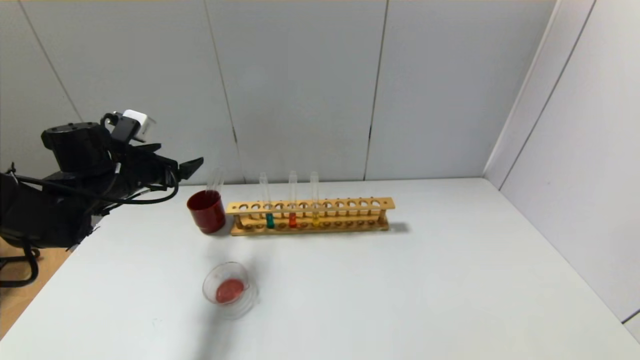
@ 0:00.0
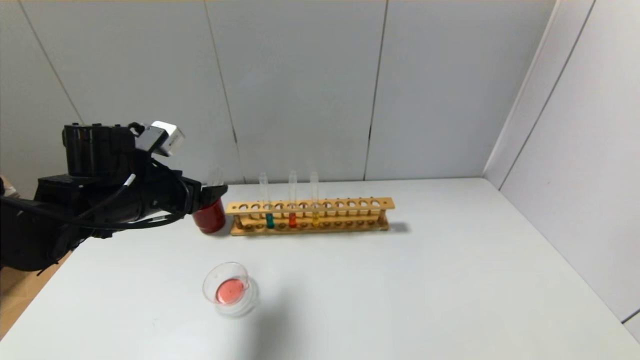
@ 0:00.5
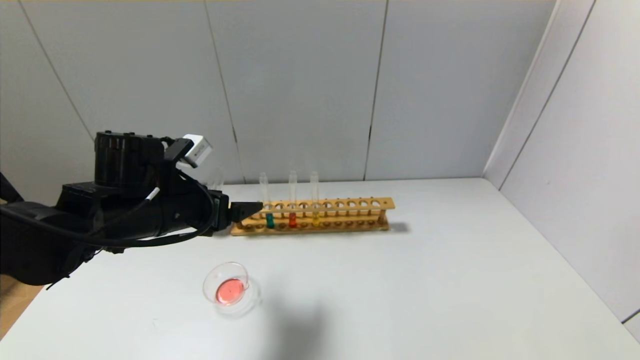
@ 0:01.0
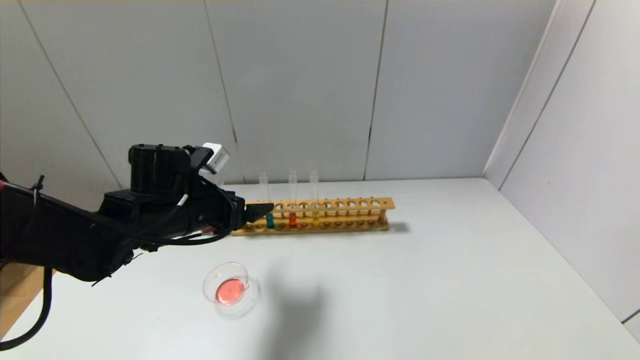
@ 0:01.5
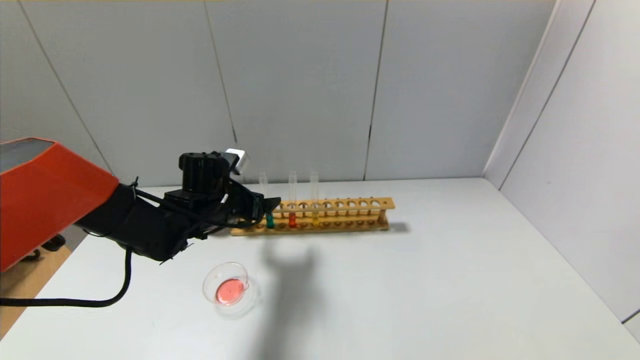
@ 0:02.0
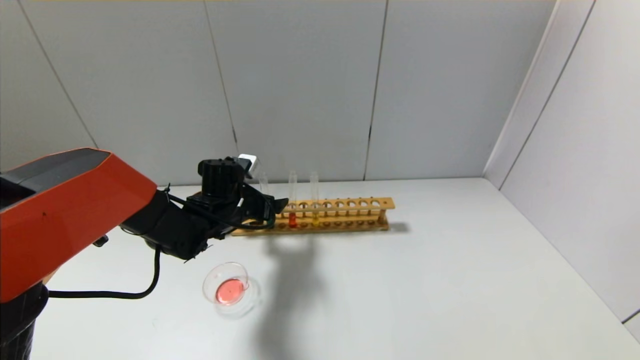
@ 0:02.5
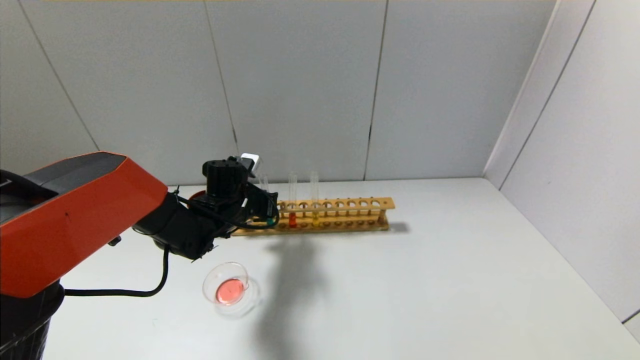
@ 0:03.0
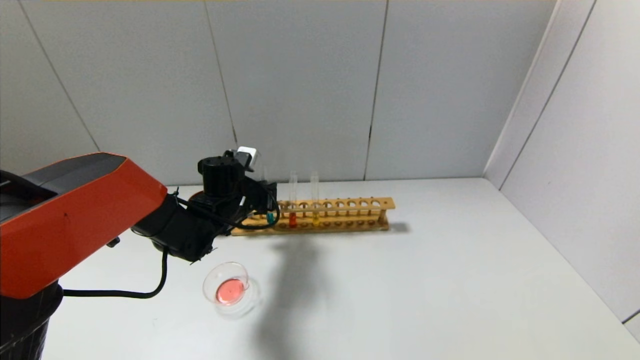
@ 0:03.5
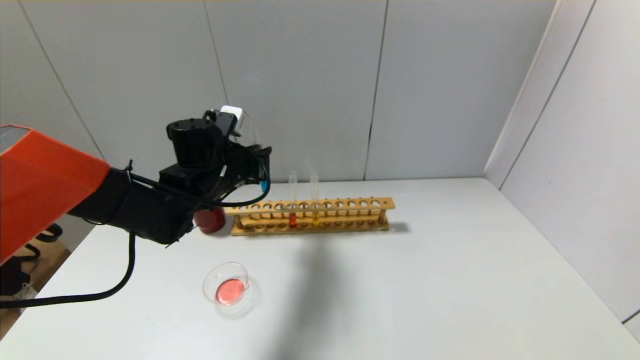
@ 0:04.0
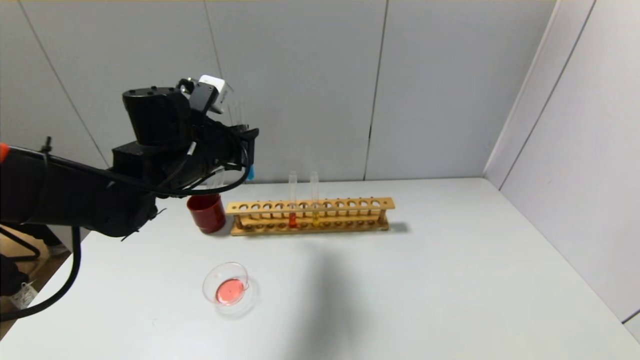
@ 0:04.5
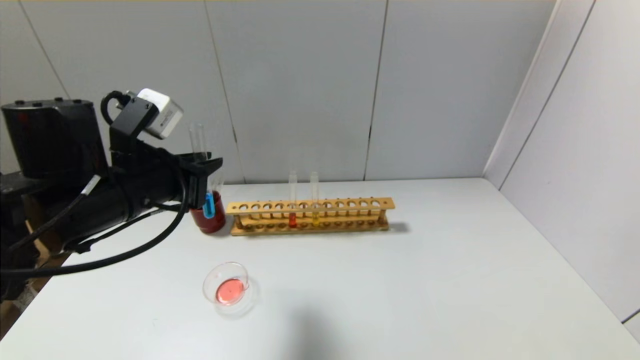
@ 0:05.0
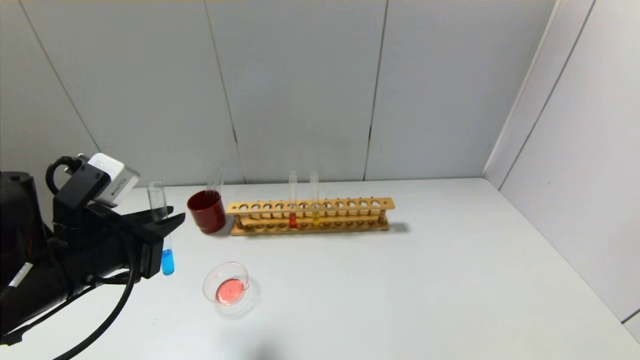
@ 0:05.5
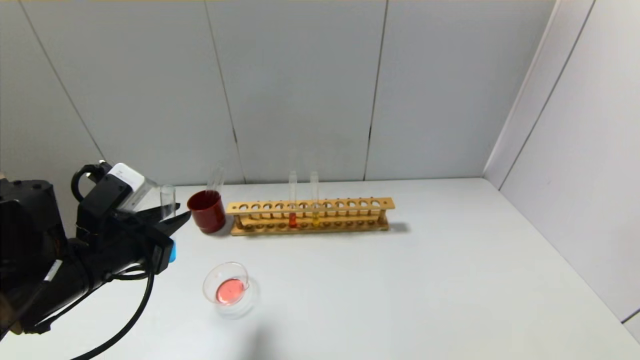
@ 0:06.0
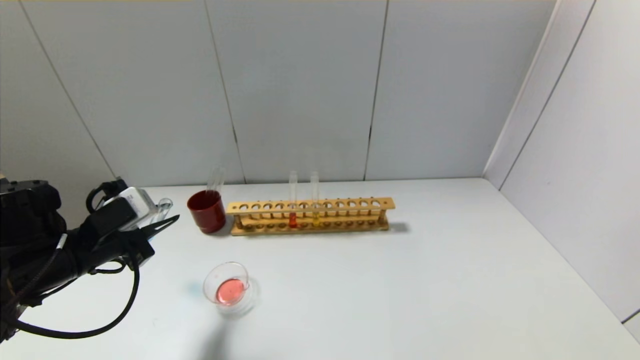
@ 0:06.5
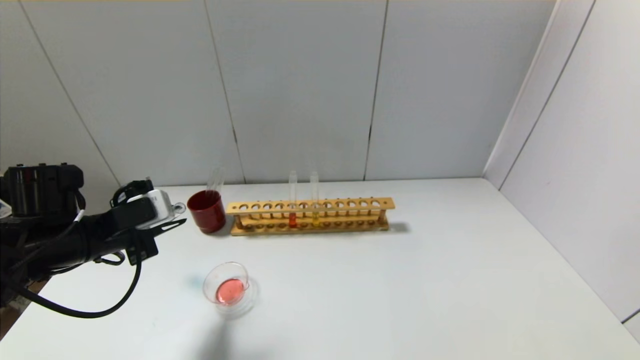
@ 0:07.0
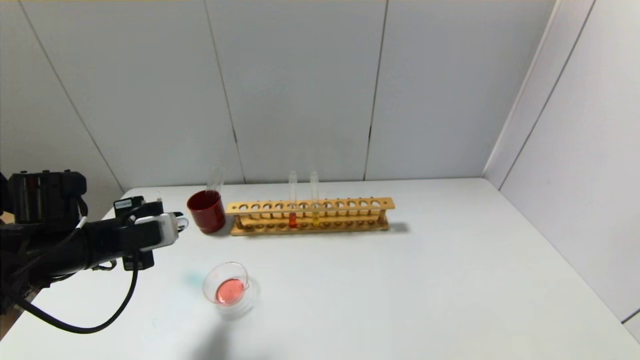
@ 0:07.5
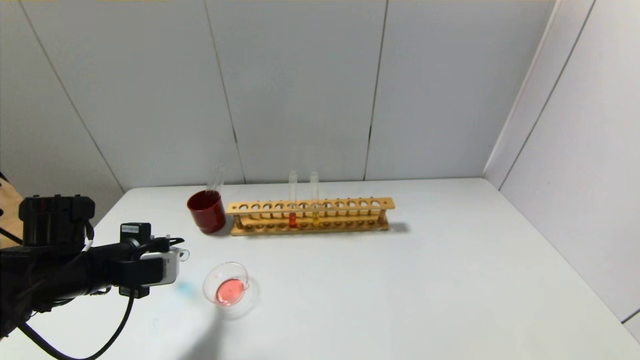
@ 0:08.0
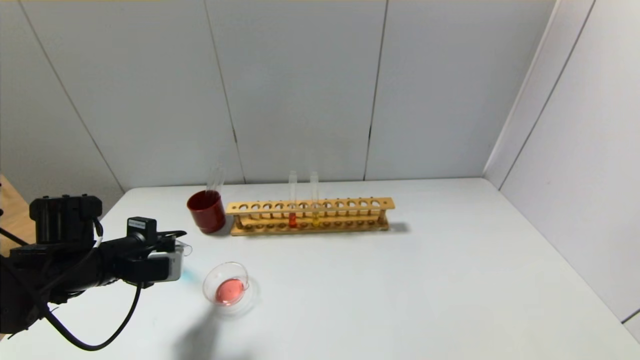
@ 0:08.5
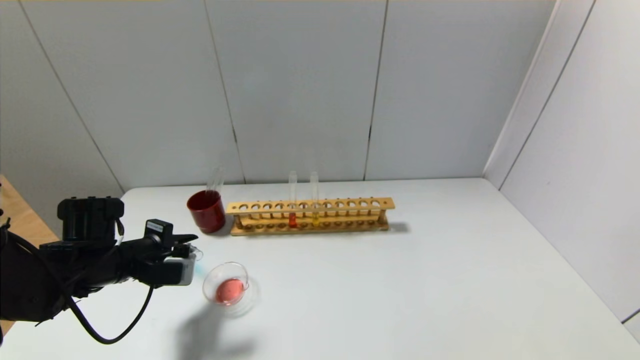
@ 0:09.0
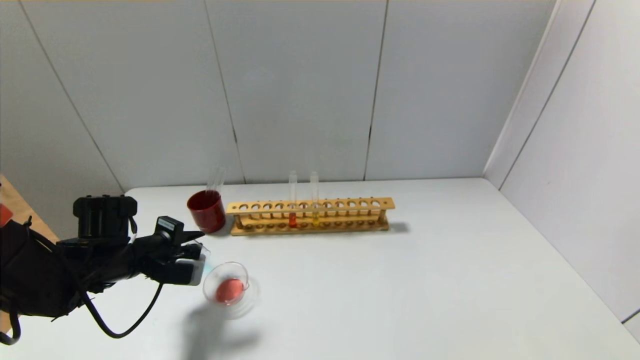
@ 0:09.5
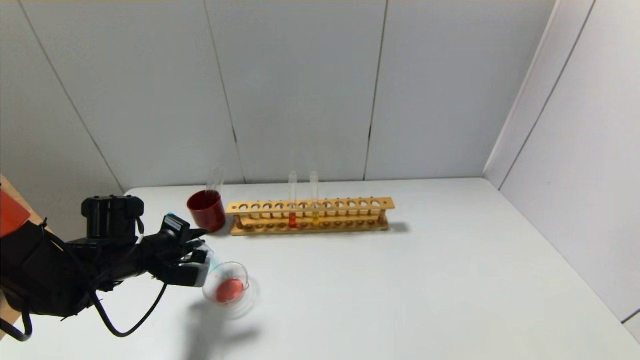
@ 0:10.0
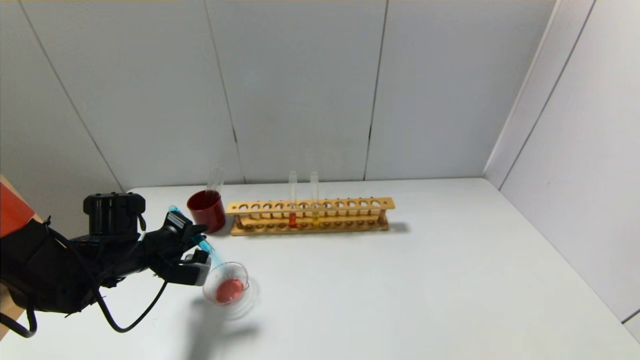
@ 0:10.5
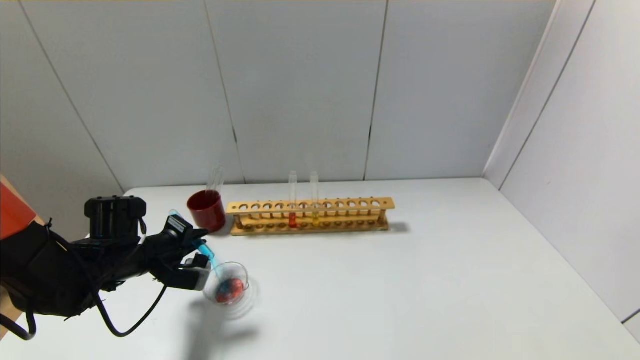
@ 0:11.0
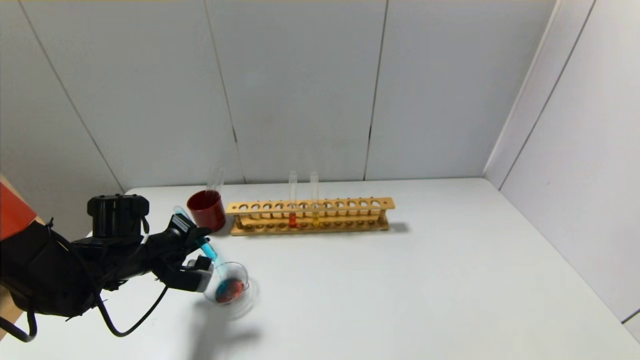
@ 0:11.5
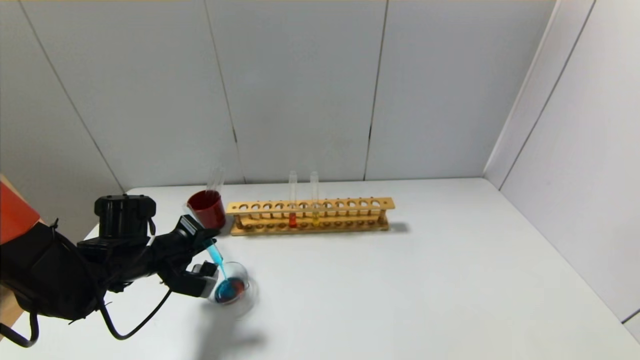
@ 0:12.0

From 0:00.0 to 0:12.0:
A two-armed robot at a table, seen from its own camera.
Step, from 0:00.0 to 0:03.5: Grasp the blue reagent with the left gripper.
From 0:00.0 to 0:02.0: The left gripper moves to the right, approximately 15 cm.
From 0:02.0 to 0:04.0: The left gripper shifts roughly 5 cm upward, and closes.
From 0:04.0 to 0:06.0: The left gripper goes some 20 cm backward and to the left.
From 0:06.0 to 0:08.0: The left gripper goes about 5 cm downward.
From 0:08.0 to 0:10.0: The left gripper goes roughly 5 cm forward.
From 0:10.0 to 0:12.0: There are only small adjustments of the grippers.

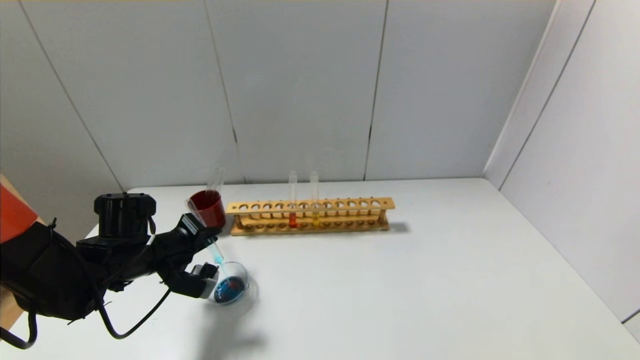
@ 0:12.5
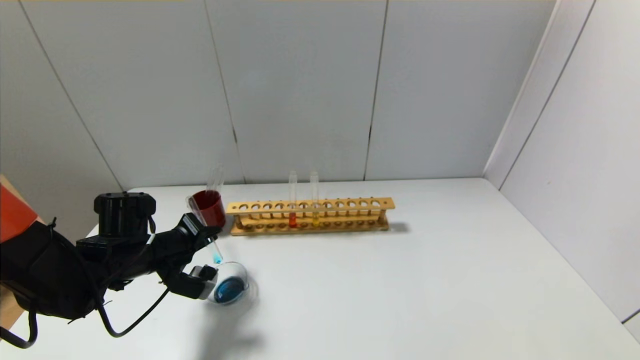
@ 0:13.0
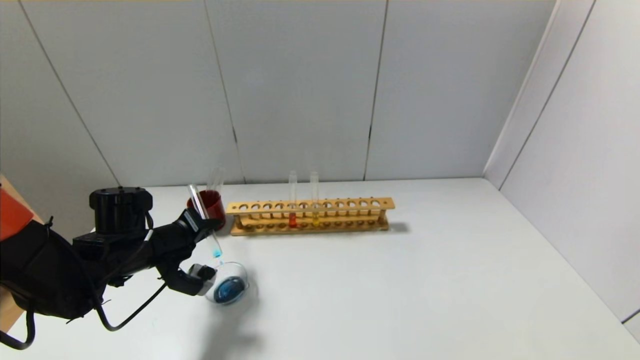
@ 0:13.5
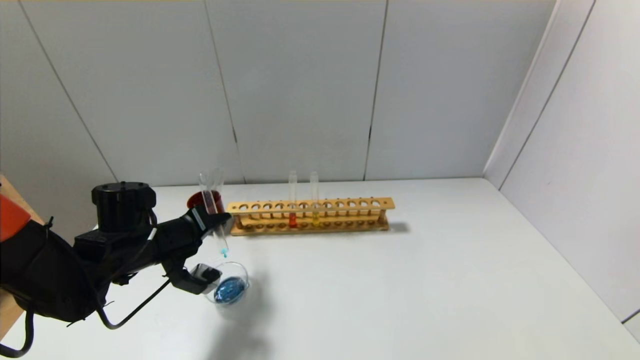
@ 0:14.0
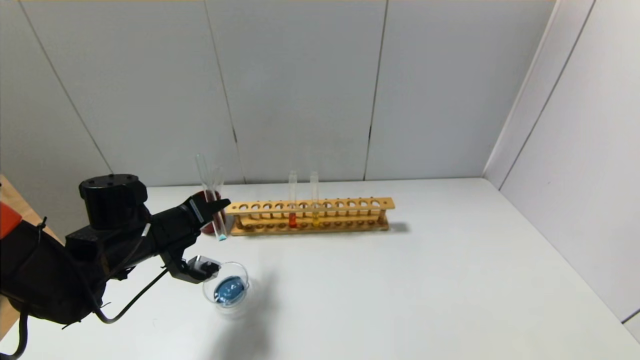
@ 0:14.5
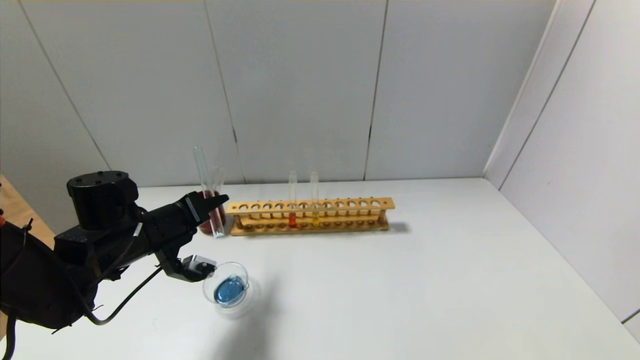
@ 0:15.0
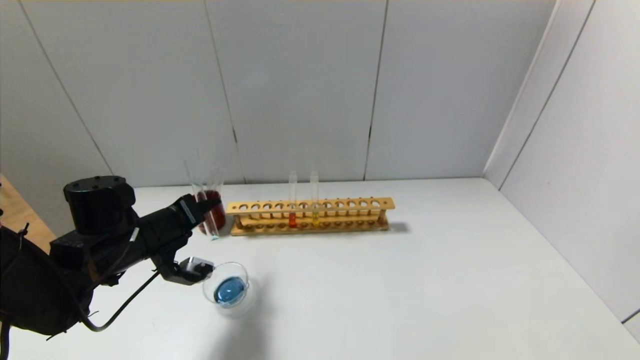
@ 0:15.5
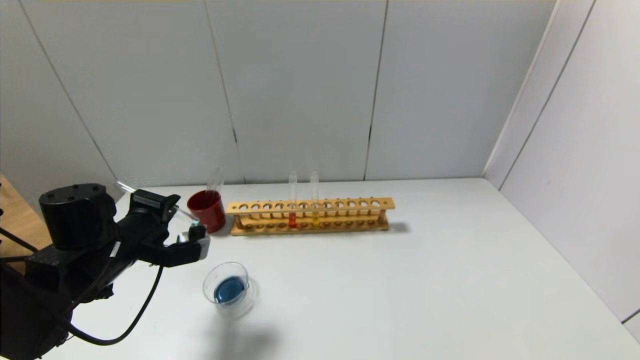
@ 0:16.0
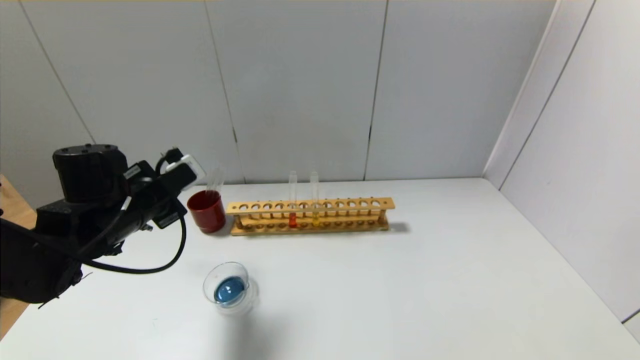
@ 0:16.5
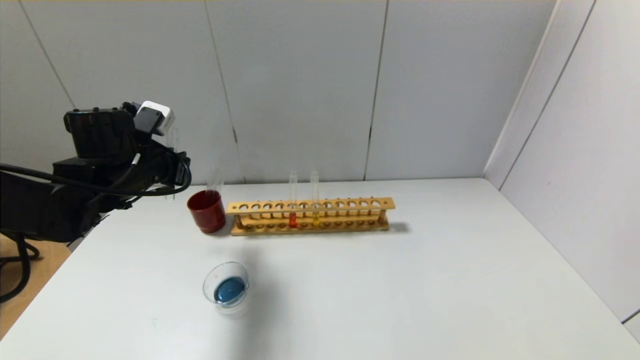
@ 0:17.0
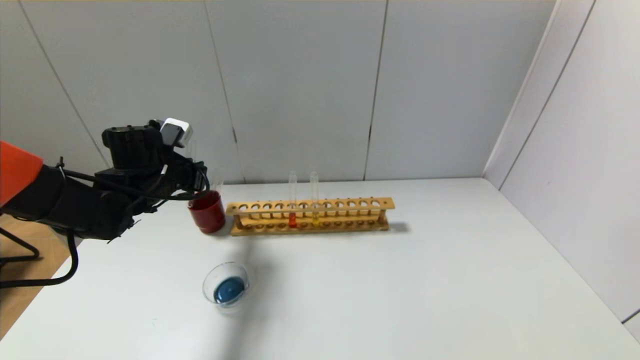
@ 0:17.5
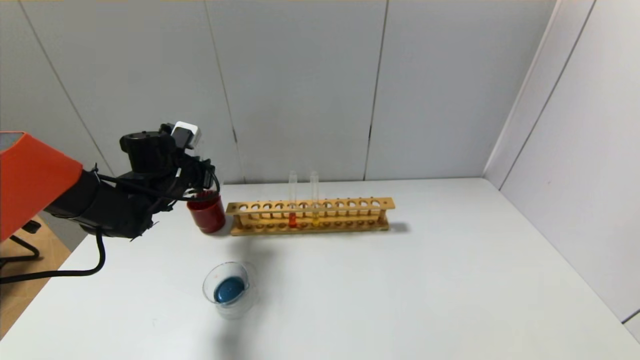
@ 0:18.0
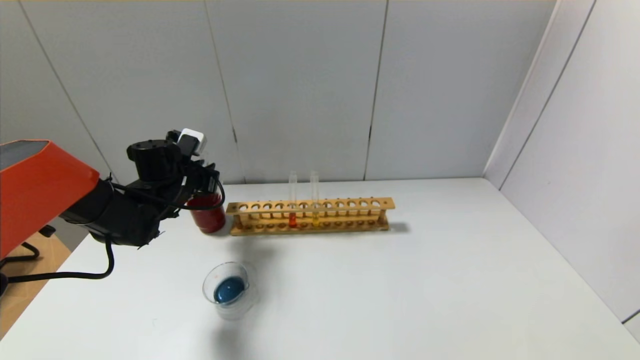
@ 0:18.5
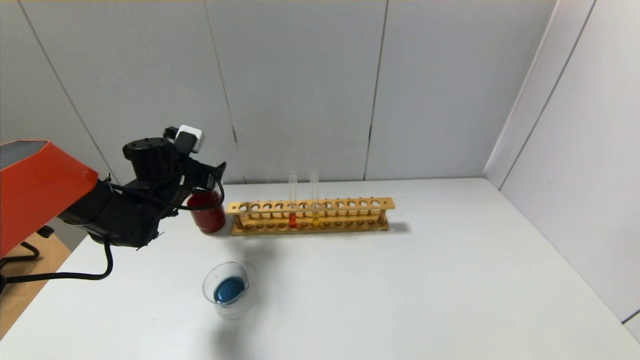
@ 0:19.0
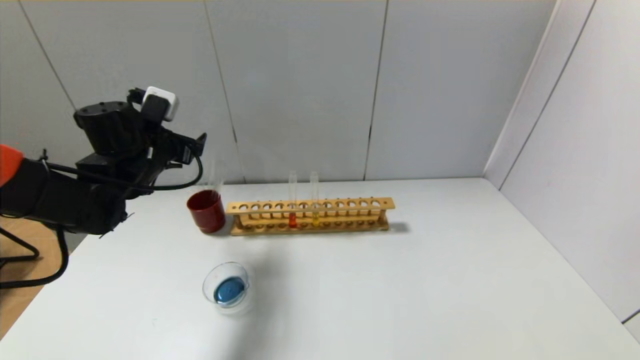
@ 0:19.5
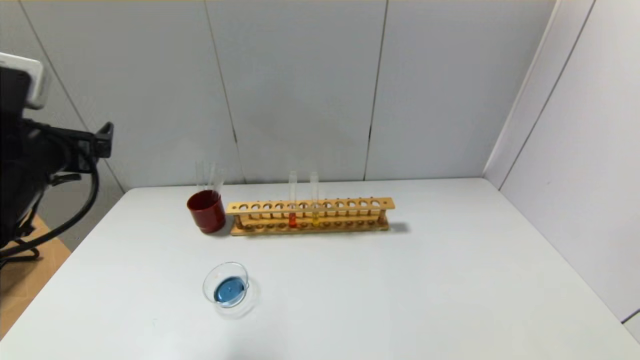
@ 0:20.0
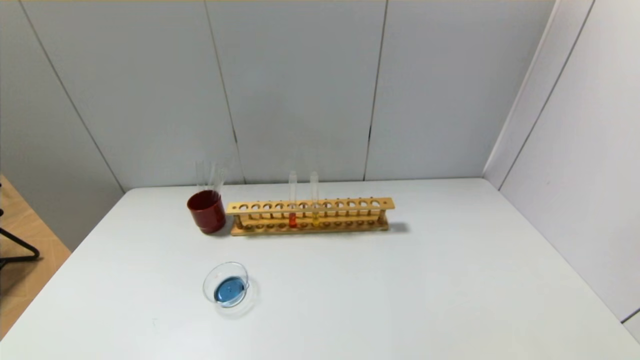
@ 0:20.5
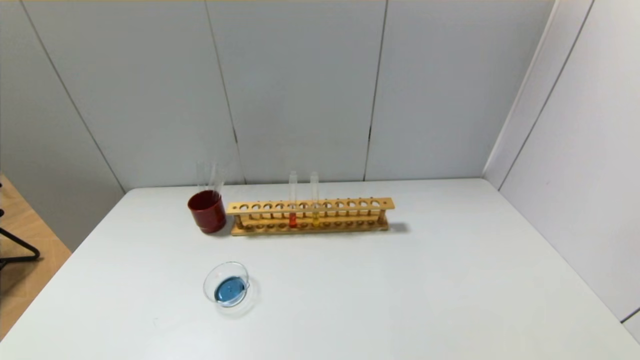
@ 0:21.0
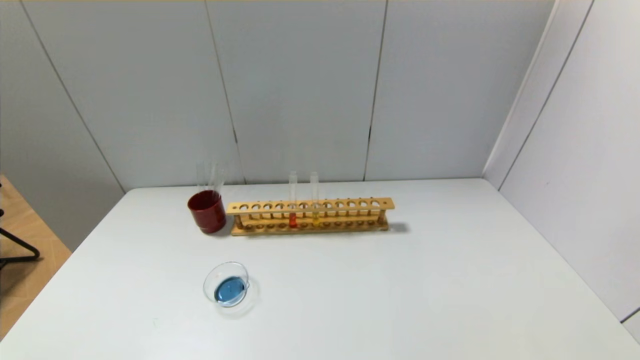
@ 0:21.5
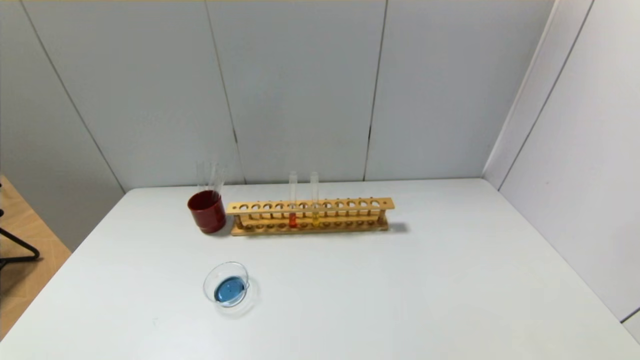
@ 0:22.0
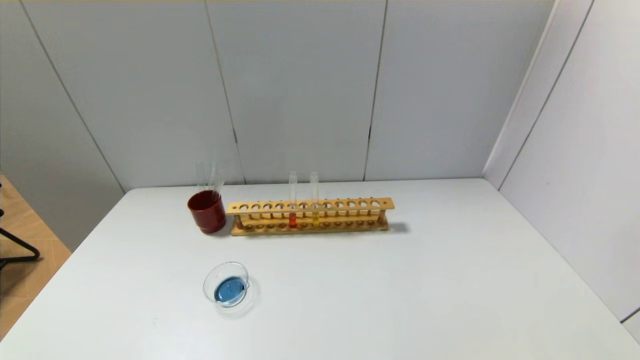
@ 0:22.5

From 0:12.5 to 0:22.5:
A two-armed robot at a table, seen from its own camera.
Step, from 0:12.5 to 0:15.5: Pour the blue reagent into the graduated cylinder with the left gripper.
Step, from 0:16.0 to 0:18.5: Place the test tube into the brown cup with the left gripper.
From 0:14.5 to 0:16.5: The left gripper shifts some 5 cm upward.
From 0:16.5 to 0:18.5: The left gripper is displaced forward by about 10 cm.
From 0:18.5 to 0:20.5: The left gripper heads backward, covering about 35 cm, and opens its fingers.
